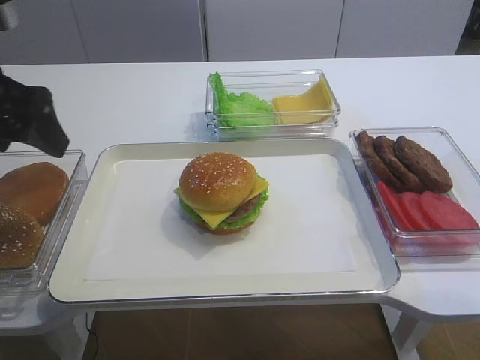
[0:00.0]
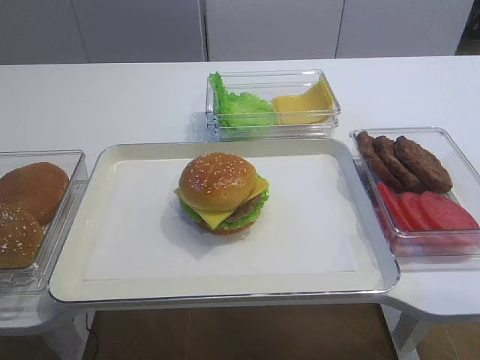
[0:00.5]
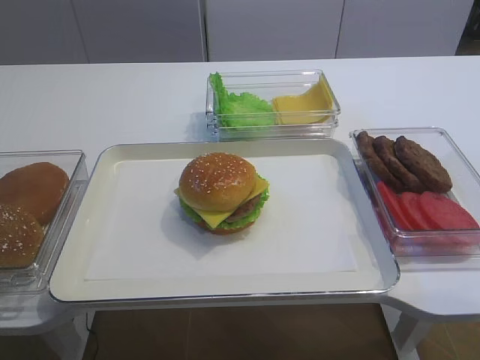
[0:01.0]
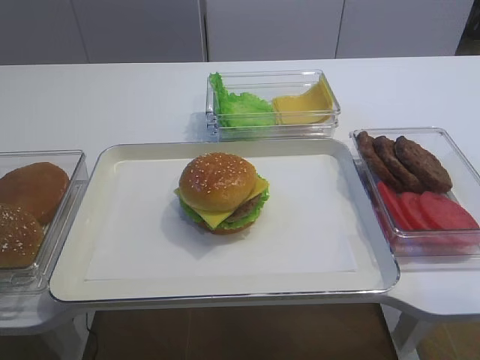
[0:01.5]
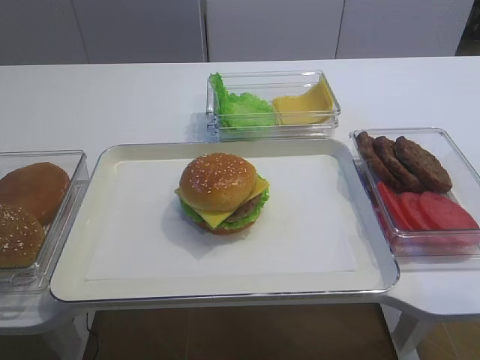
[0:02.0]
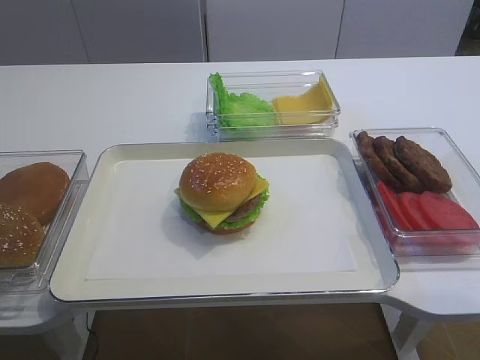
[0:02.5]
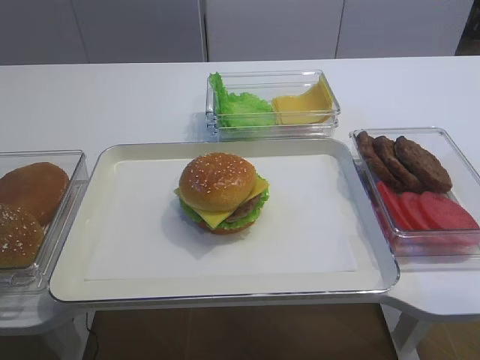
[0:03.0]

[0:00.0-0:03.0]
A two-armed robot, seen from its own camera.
0:00.0 to 0:01.5: The left gripper heads backward, covering about 25 cm.
